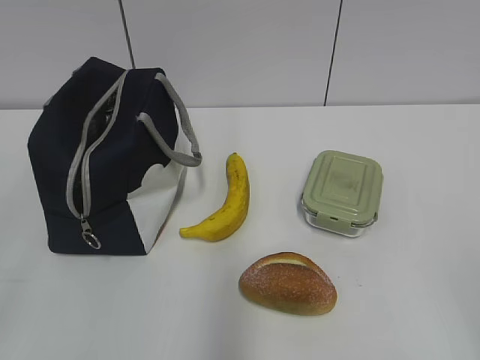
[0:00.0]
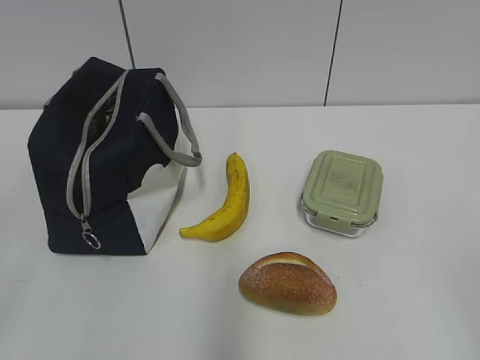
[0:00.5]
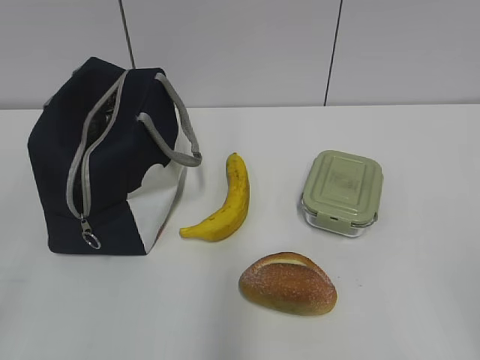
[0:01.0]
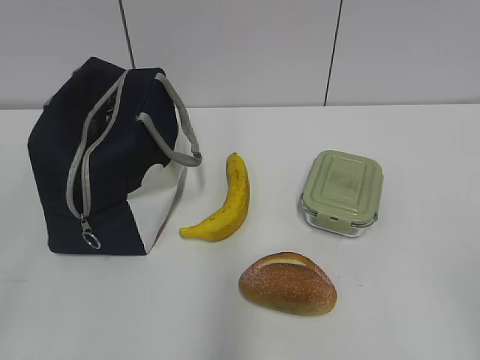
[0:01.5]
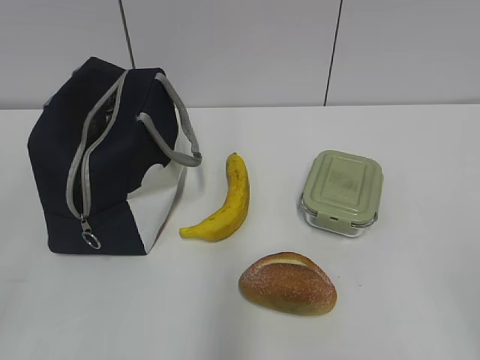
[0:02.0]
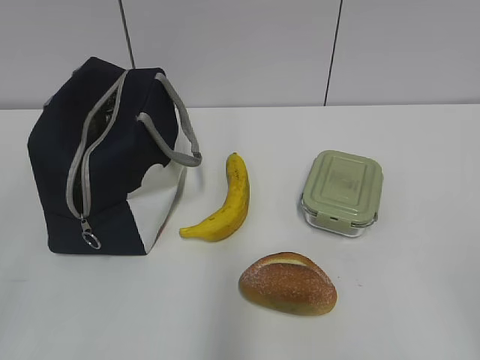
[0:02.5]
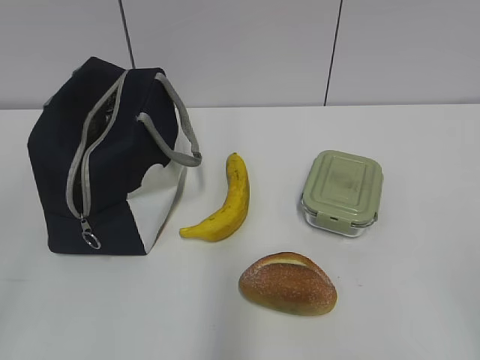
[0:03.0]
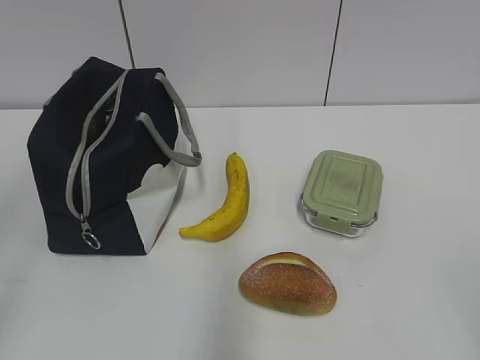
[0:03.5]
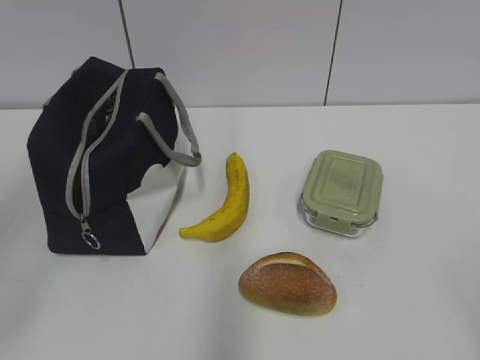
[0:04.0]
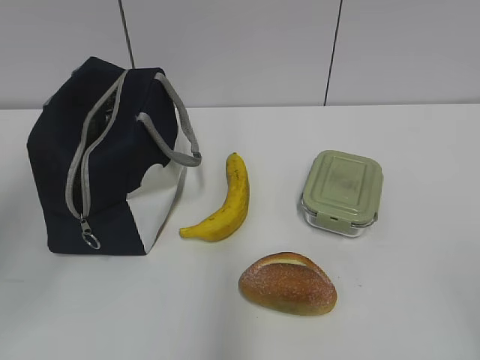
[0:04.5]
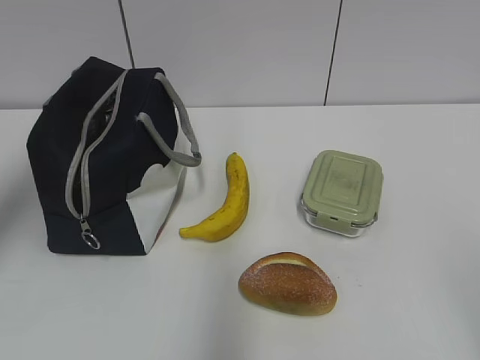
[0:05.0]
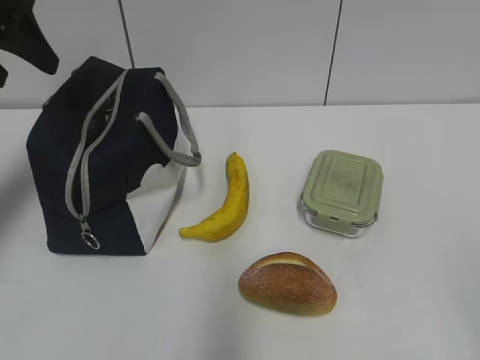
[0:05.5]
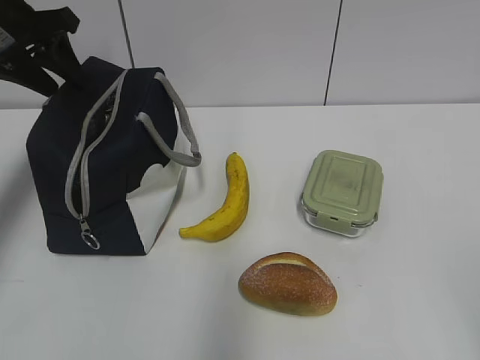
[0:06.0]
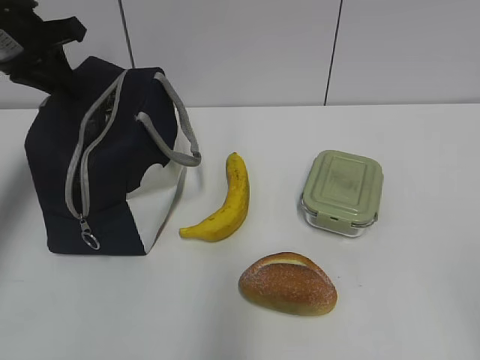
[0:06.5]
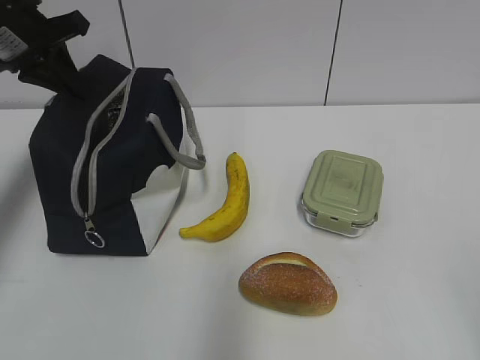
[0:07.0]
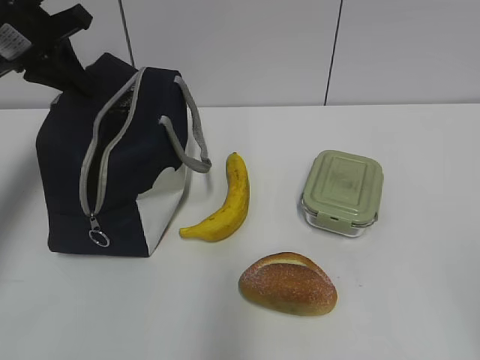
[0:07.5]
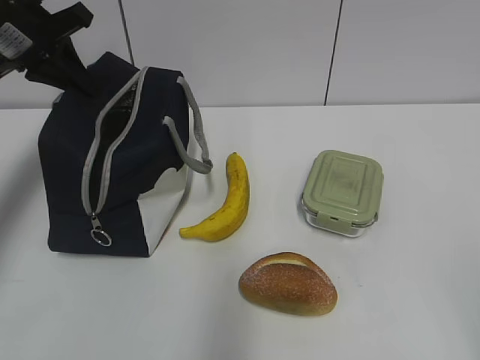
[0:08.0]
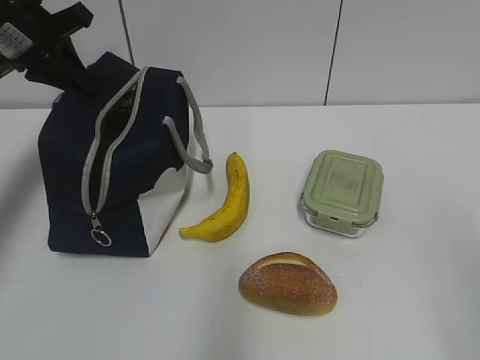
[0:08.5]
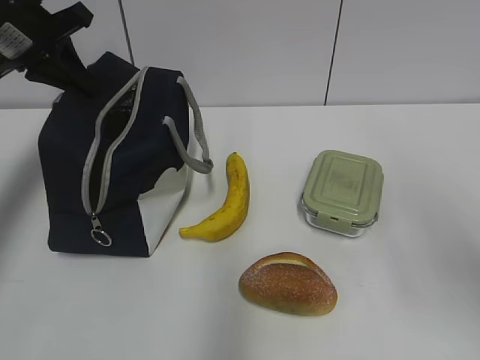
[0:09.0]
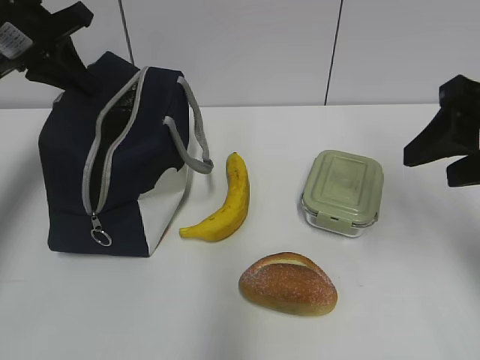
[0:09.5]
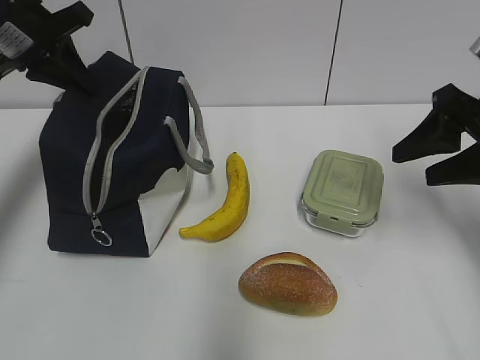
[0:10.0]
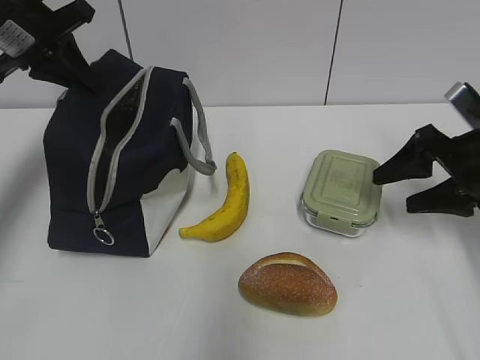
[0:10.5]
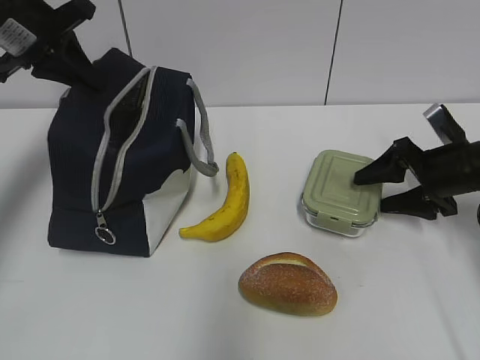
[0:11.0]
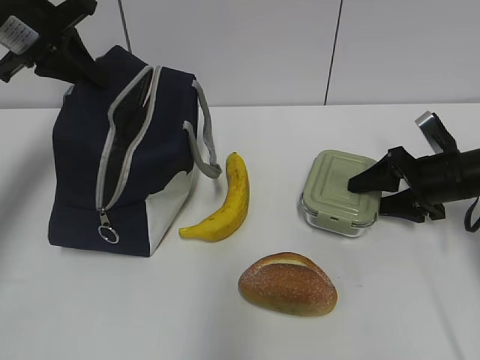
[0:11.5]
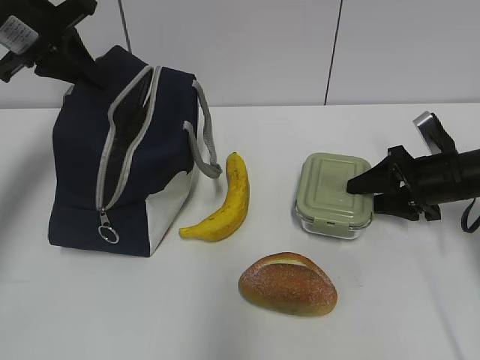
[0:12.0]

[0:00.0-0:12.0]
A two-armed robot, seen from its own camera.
0:04.0 to 0:06.0: The left gripper goes about 30 cm forward.
0:06.0 to 0:08.0: The left gripper closes.
0:08.0 to 0:10.0: The right gripper is displaced forward by roughly 30 cm.
0:10.0 to 0:12.0: The right gripper travels downward and forward by roughly 15 cm.

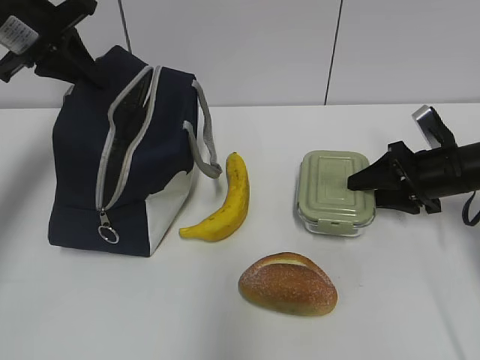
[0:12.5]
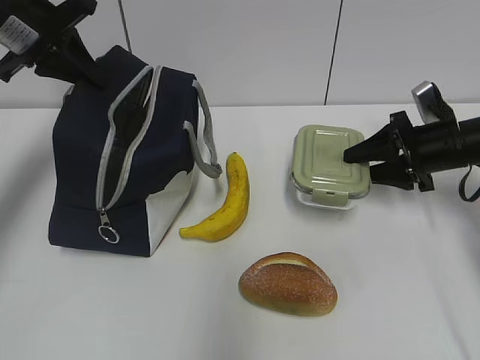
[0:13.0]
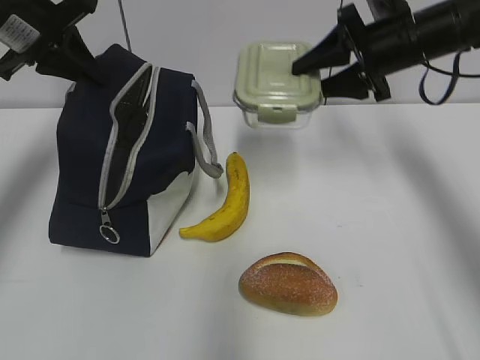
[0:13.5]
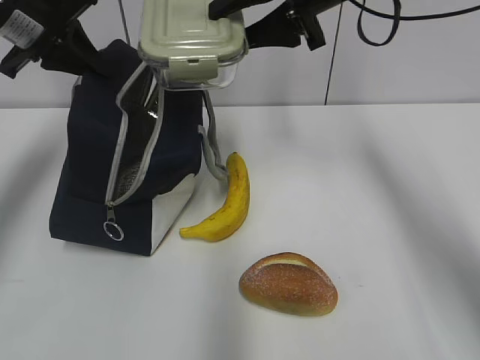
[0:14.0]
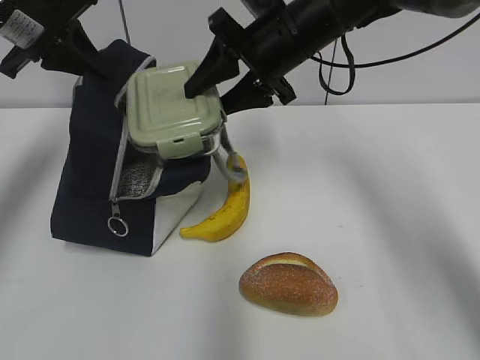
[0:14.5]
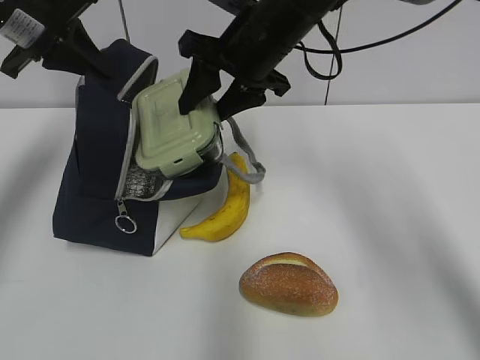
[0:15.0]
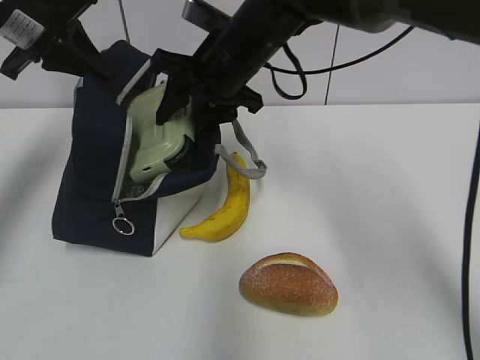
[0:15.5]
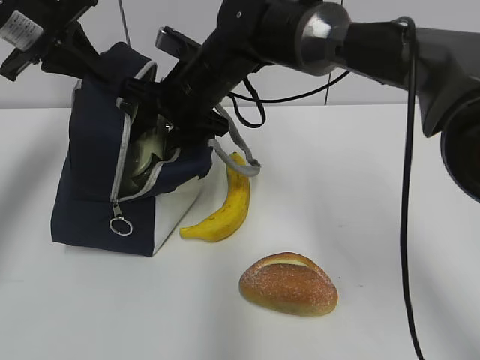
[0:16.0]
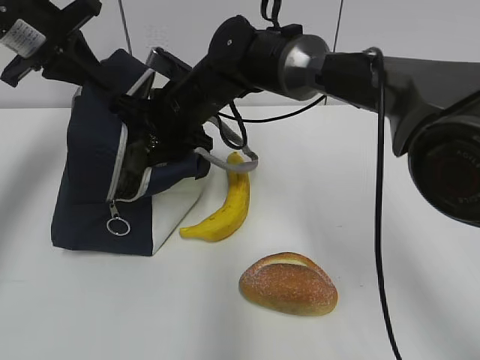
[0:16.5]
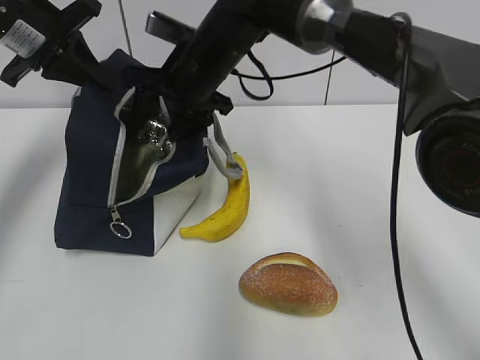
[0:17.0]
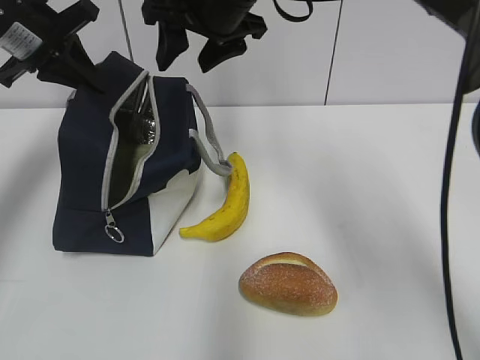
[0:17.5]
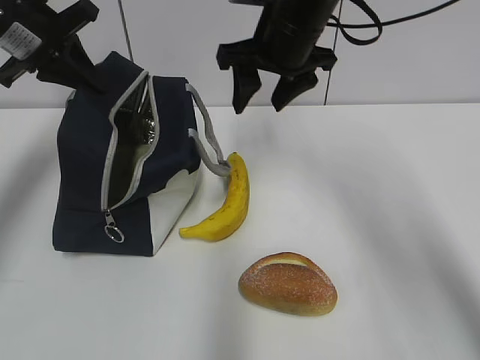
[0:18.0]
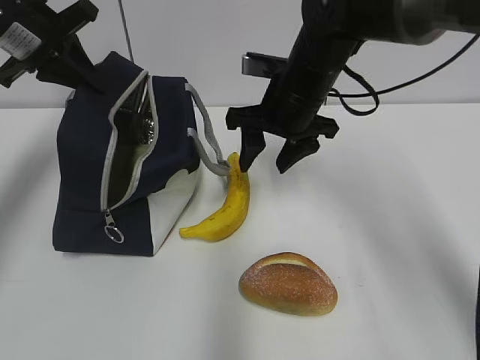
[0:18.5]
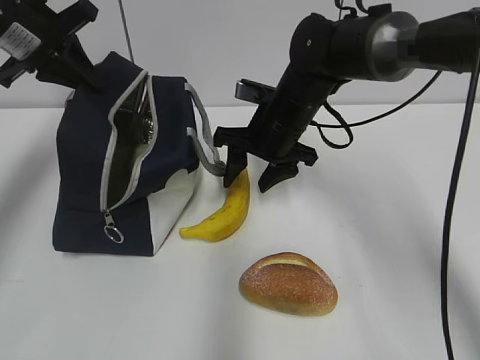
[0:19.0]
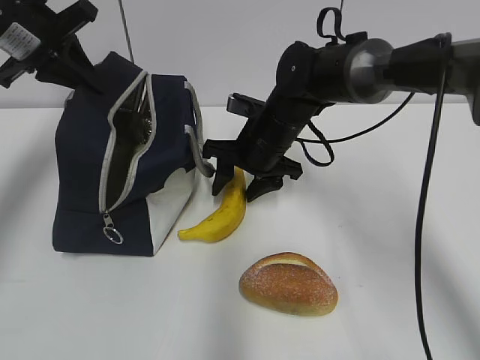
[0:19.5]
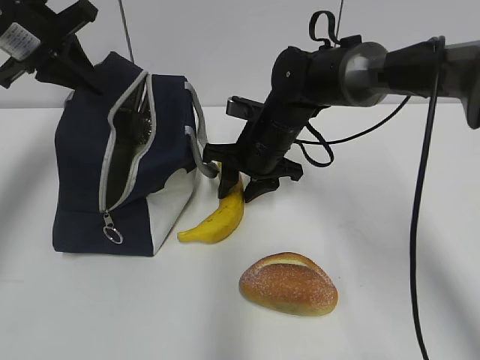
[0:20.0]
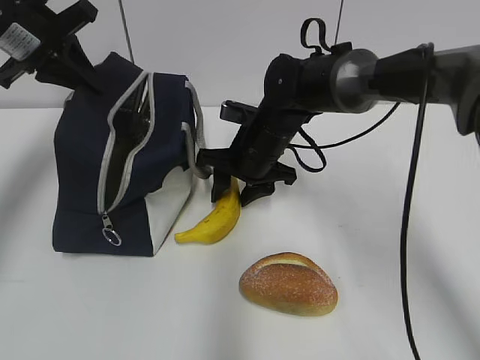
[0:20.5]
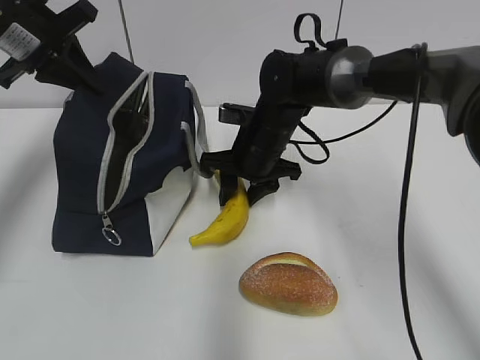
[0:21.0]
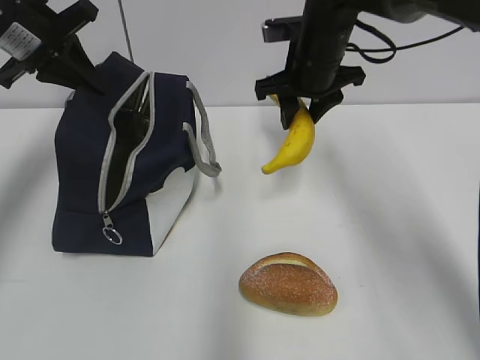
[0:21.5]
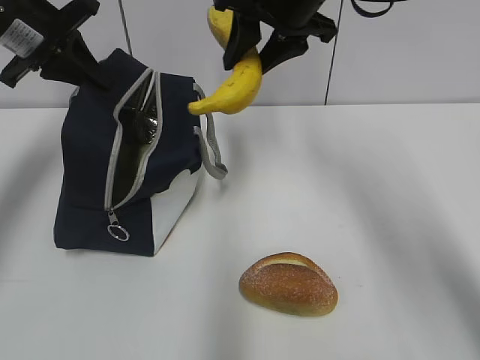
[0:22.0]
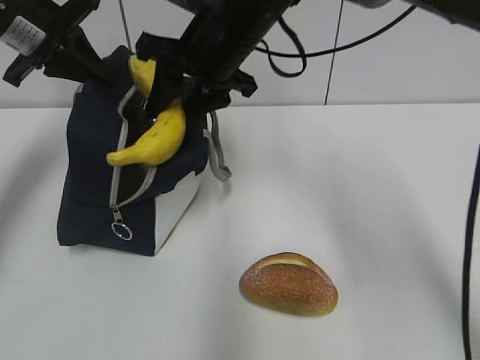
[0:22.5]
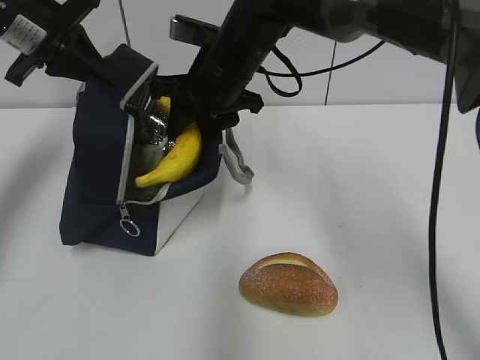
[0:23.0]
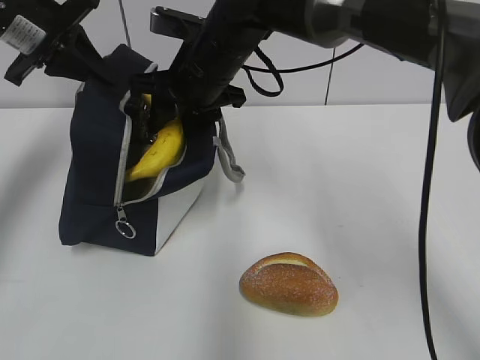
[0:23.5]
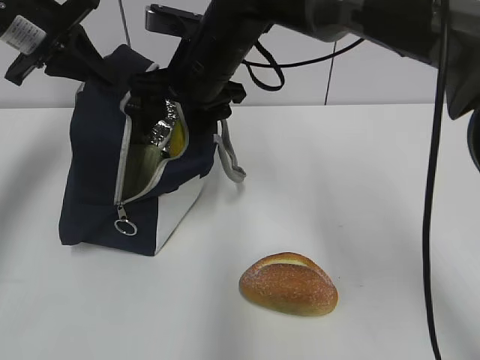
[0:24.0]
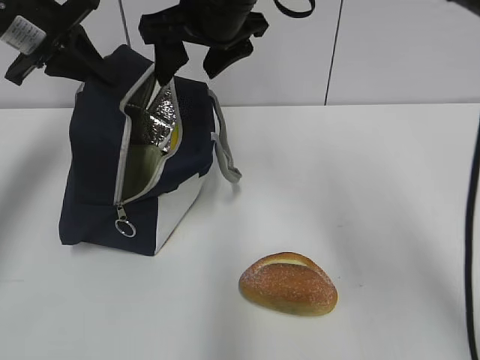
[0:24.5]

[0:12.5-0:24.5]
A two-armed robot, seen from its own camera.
0:12.5 to 0:14.5: The right gripper shifts roughly 25 cm to the left and upward.
0:14.5 to 0:16.5: The right gripper is displaced to the left and downward by about 15 cm.
0:16.5 to 0:18.5: The right gripper is displaced to the right by some 15 cm, and travels upward and back again, some 15 cm each way.
0:18.5 to 0:20.5: The right gripper heads downward, covering about 10 cm.
0:20.5 to 0:22.5: The right gripper shifts about 15 cm upward.

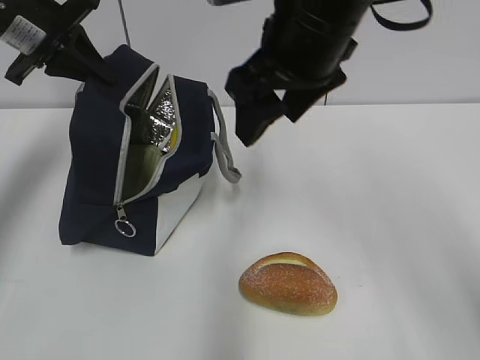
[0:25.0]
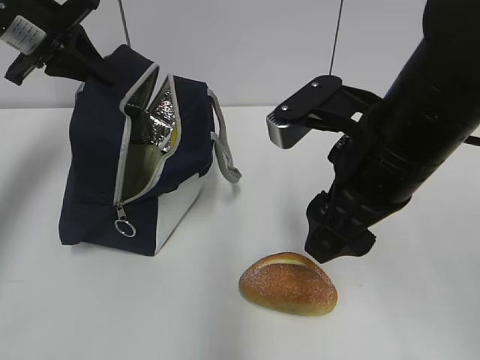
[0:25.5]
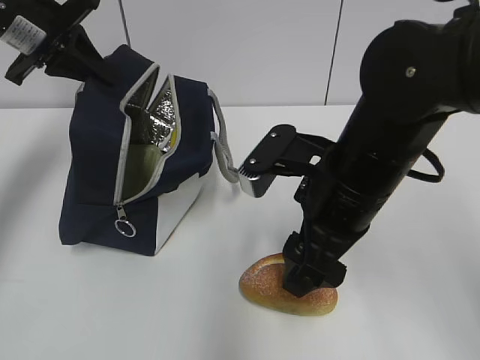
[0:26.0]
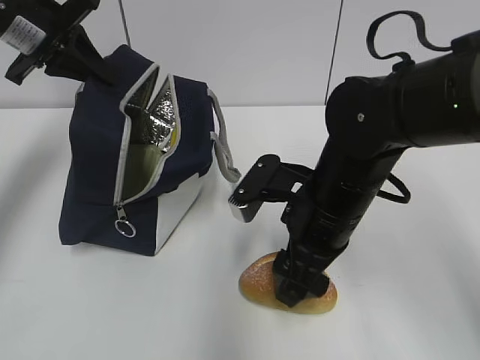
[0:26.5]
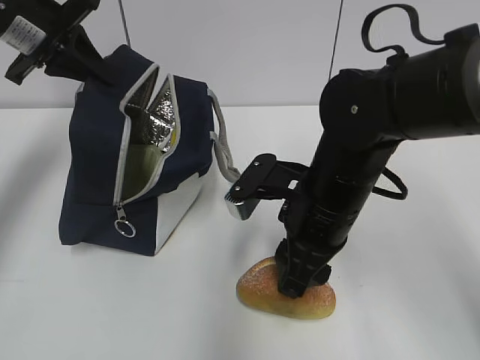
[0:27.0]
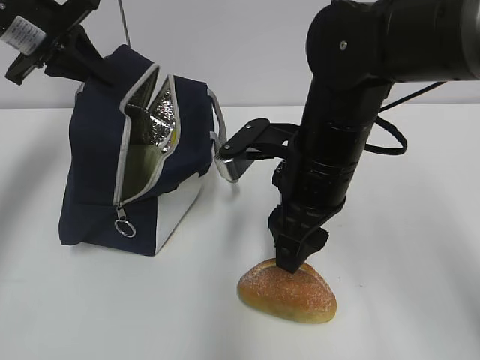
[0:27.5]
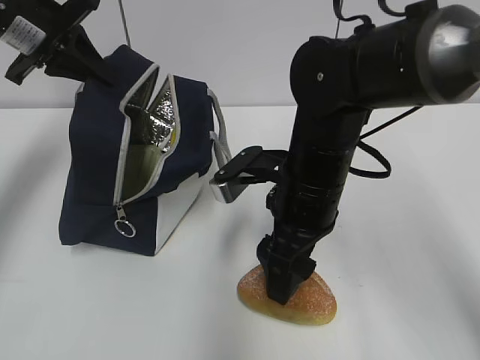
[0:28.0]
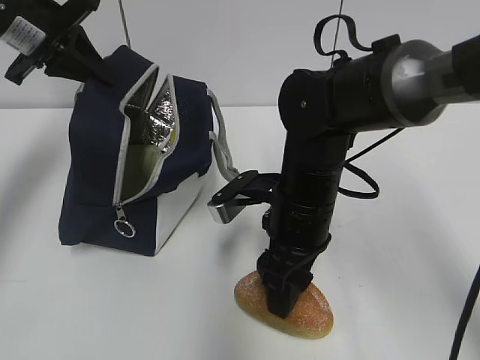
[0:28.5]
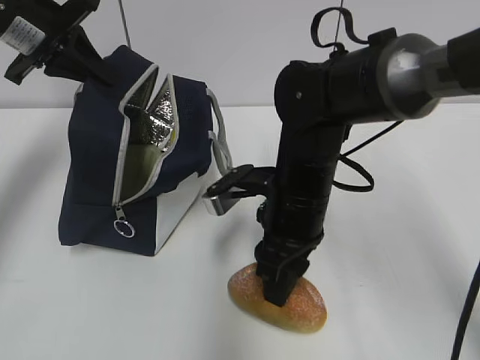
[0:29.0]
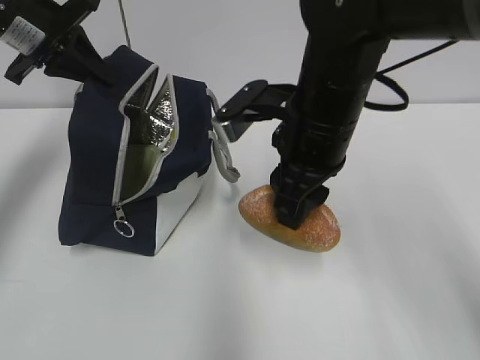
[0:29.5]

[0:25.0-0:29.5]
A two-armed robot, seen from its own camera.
0:25.0 to 0:27.0: The right gripper goes about 15 cm downward.
0:27.0 to 0:29.5: The right gripper swings up and down, some 10 cm each way, with 2 reversals, and opens, then closes once more.
